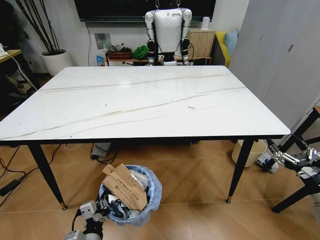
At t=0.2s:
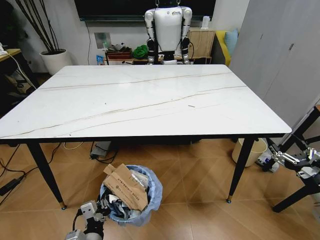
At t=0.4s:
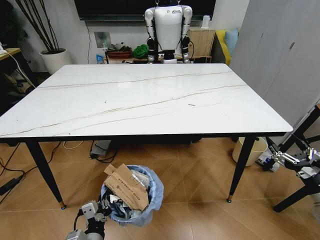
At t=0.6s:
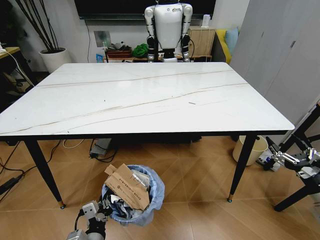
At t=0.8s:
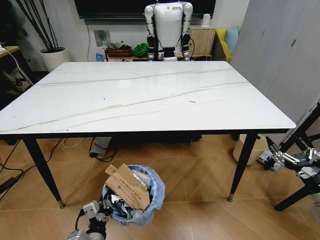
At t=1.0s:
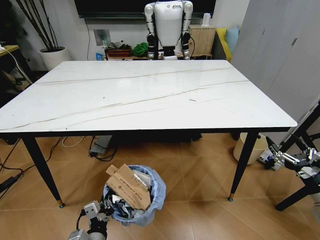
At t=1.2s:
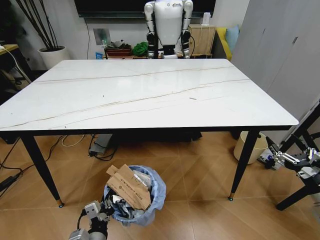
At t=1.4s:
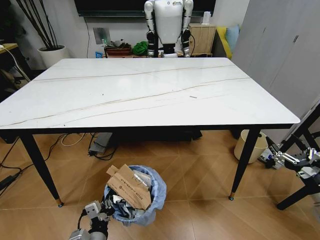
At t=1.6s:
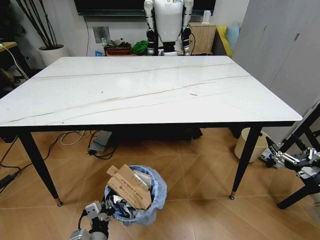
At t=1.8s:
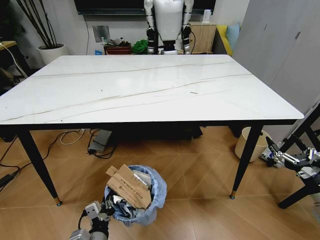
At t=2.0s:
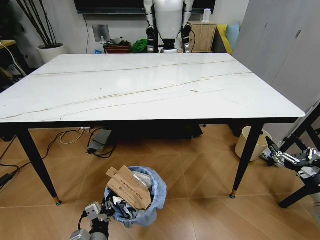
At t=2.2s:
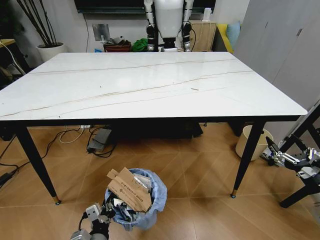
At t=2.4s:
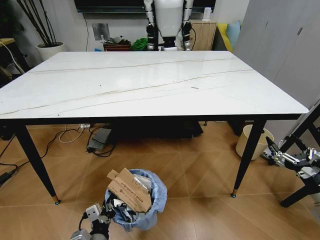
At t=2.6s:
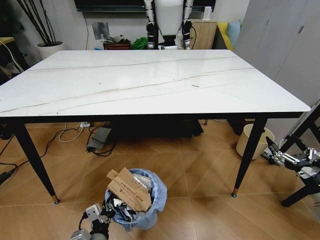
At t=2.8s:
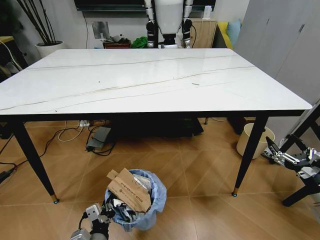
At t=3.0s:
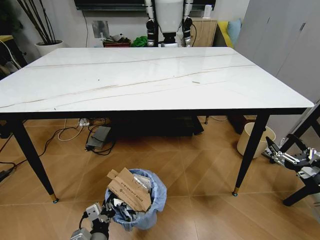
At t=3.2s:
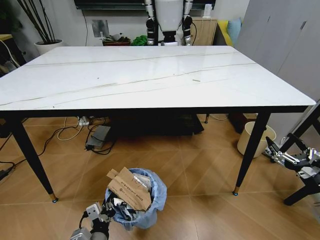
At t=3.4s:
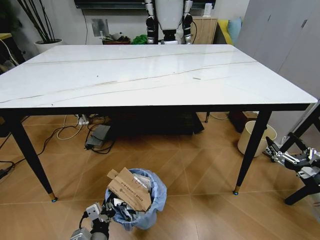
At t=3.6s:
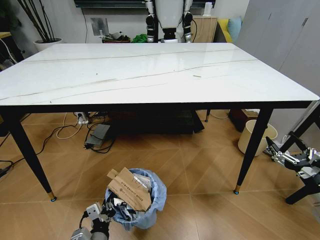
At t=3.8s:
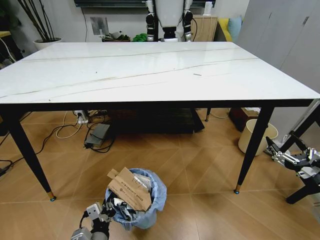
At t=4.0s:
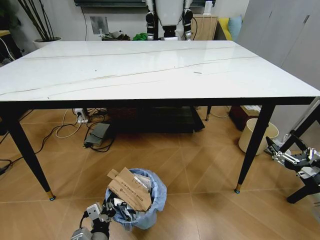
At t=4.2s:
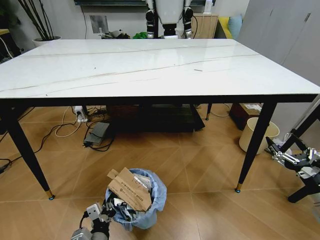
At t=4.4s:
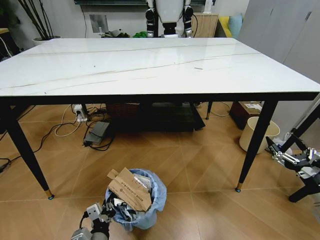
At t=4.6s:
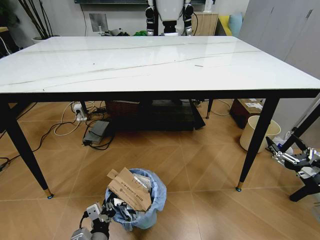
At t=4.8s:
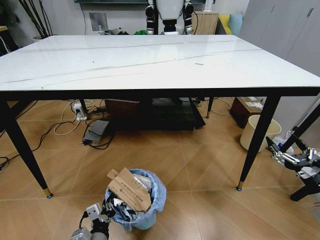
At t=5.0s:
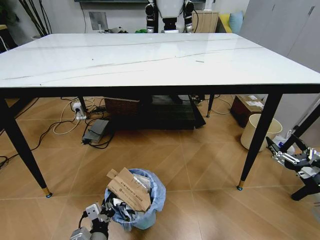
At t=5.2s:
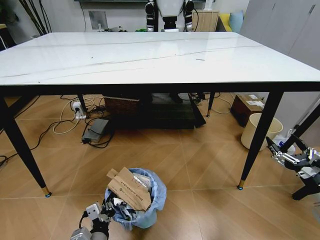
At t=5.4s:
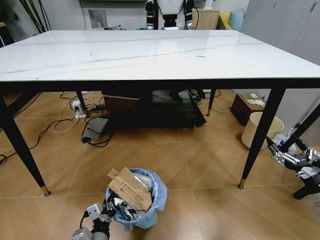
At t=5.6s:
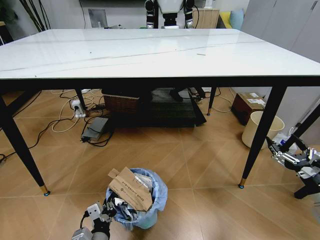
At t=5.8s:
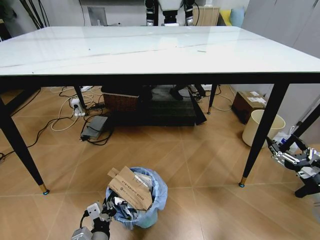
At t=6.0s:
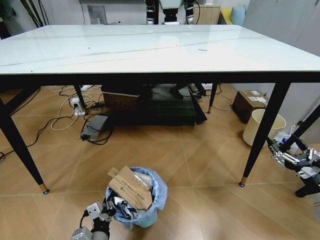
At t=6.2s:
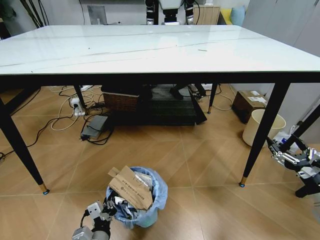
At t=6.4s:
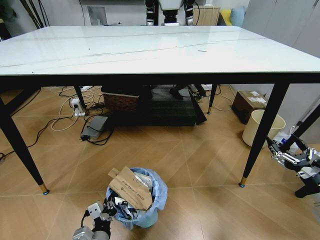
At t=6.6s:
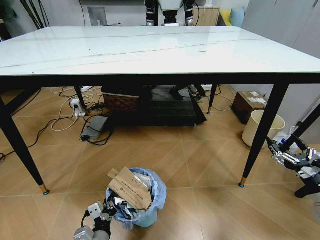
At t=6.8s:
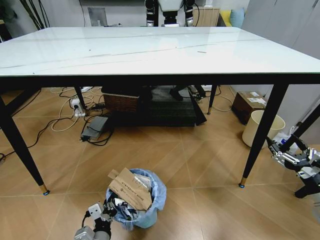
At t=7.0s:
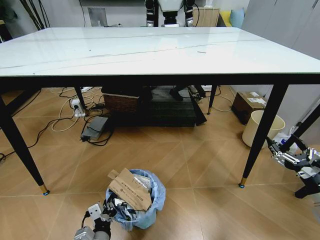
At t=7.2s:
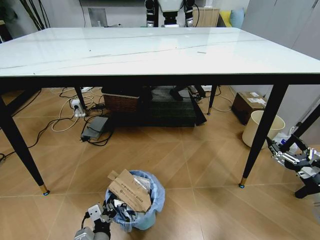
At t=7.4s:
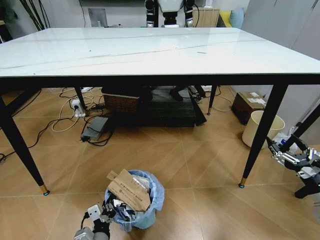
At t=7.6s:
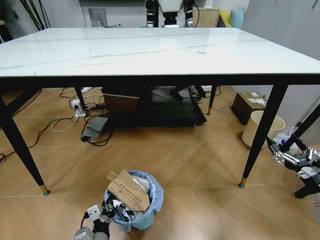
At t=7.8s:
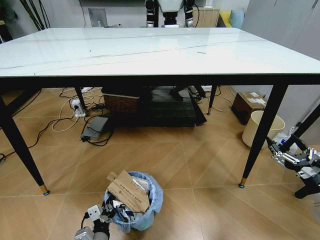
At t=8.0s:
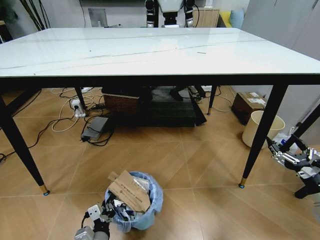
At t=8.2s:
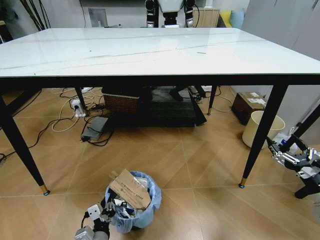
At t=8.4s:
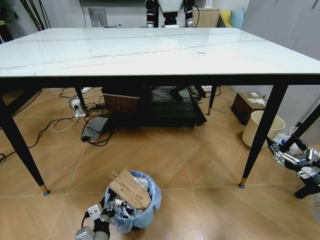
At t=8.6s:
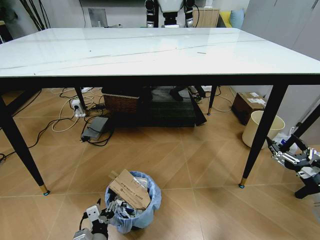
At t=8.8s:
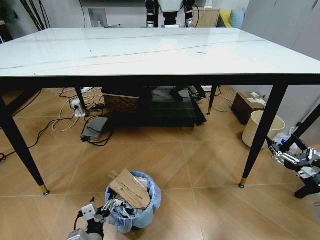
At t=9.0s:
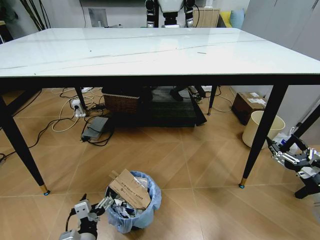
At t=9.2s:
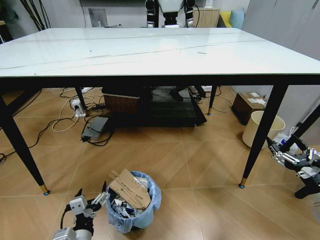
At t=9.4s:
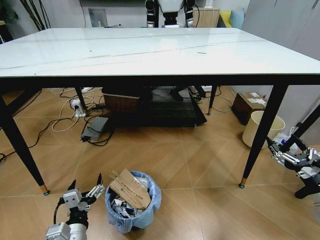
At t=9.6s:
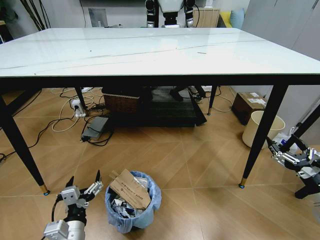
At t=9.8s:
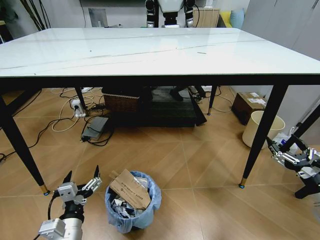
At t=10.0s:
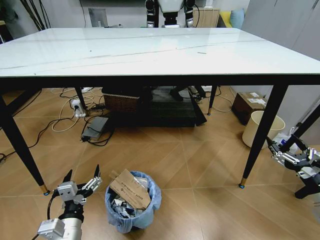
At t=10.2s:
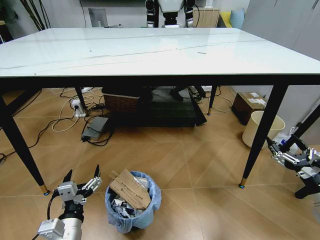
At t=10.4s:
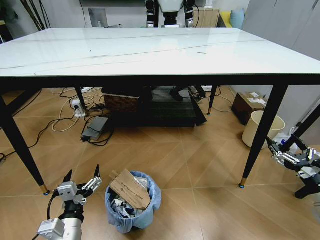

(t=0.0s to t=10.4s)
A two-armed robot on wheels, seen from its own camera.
Task of the whole recording: Pick up the trash bin and place the trash from the table into it.
t=6.0s - t=7.4s: The grippers make only small movements.
t=7.4s - t=9.0s: The left gripper opens its fingers.
t=9.0s - t=10.4s: The left gripper moves upward, approximately 5 cm.
